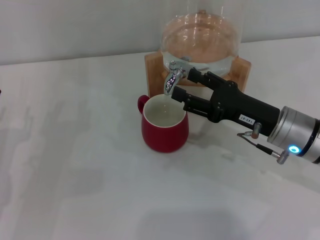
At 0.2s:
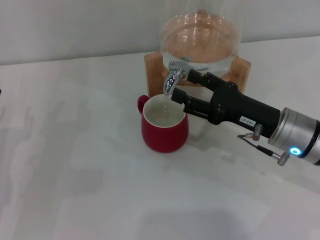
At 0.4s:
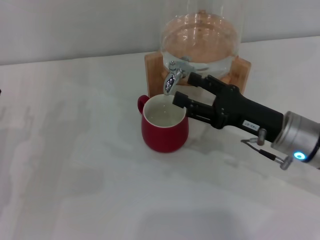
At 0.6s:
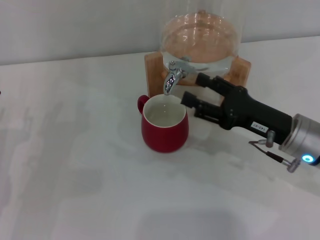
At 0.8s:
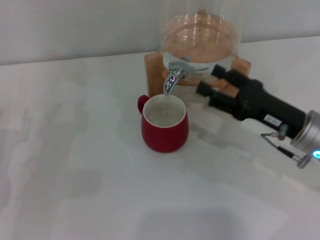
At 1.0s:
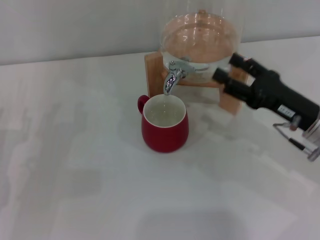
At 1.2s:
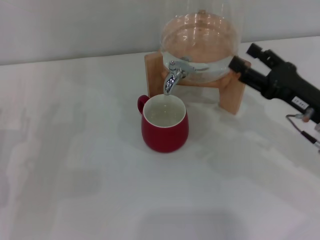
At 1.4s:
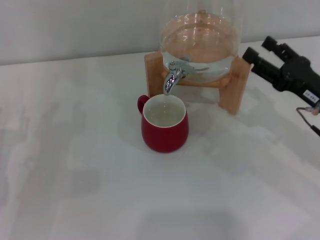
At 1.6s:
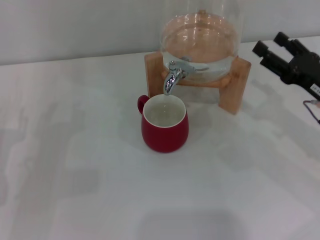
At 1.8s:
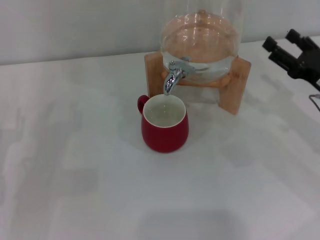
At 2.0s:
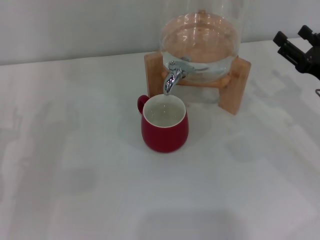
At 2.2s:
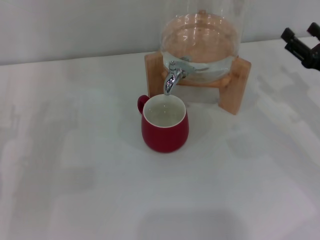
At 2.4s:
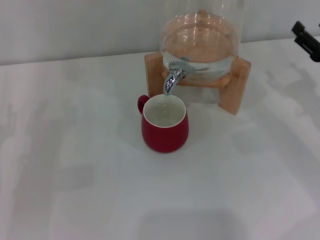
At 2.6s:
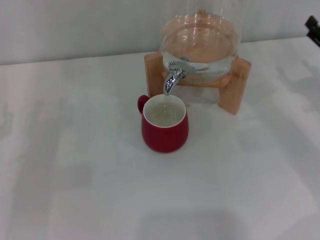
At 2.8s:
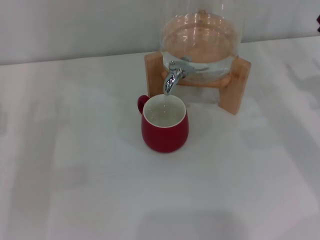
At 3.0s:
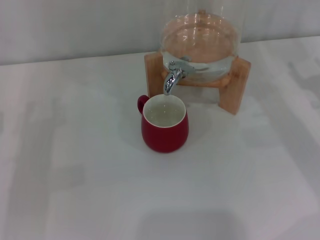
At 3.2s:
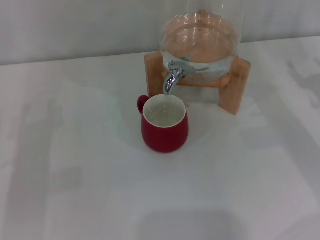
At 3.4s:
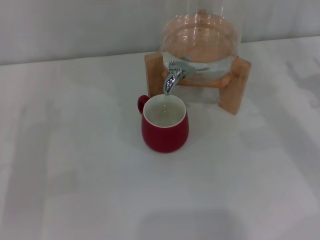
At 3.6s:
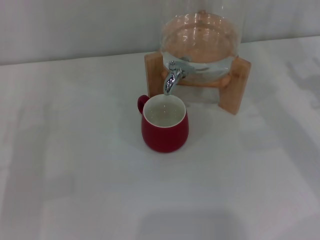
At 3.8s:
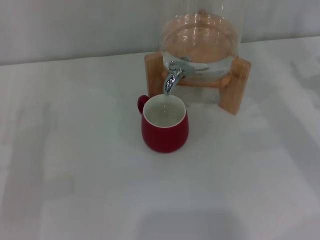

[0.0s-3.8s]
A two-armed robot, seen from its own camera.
Task of the whole recording: the left gripper pick up the red cup and place it horizontally under the faucet, the right gripper turn on the faucet to fill the cup, and then turn off the faucet.
0.0s to 1.2s: The right gripper heads to the right, covering some 5 cm.
1.2s to 2.6s: The right gripper moves to the right, about 10 cm.
2.6s to 3.8s: The grippers make only small movements.

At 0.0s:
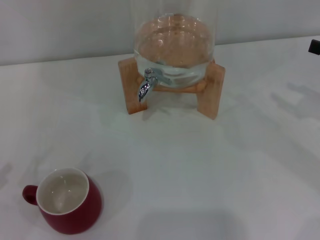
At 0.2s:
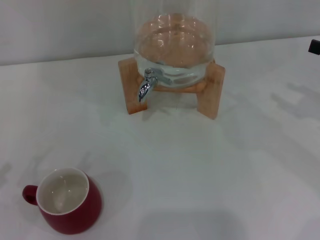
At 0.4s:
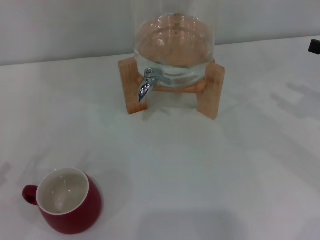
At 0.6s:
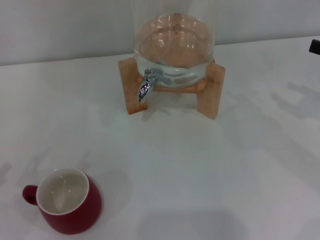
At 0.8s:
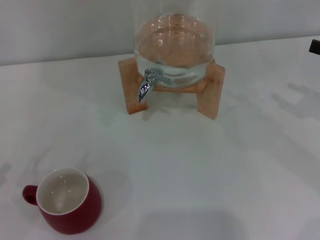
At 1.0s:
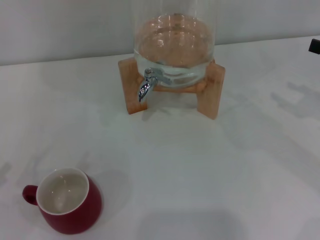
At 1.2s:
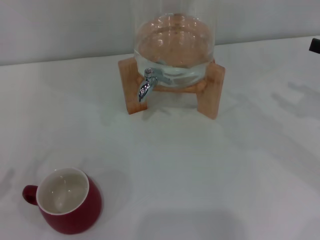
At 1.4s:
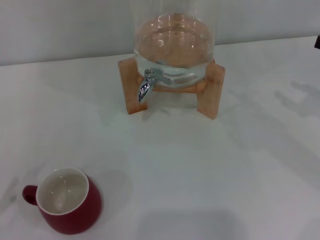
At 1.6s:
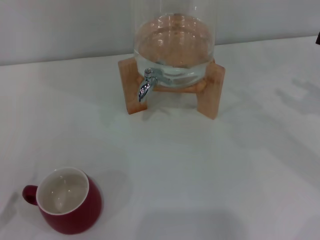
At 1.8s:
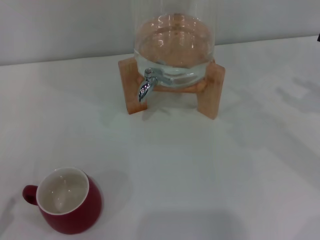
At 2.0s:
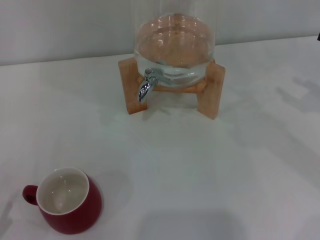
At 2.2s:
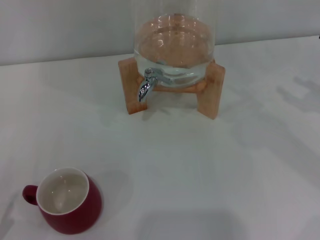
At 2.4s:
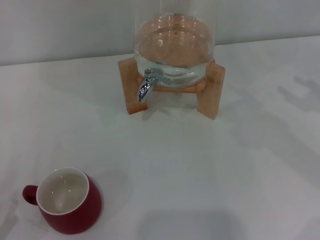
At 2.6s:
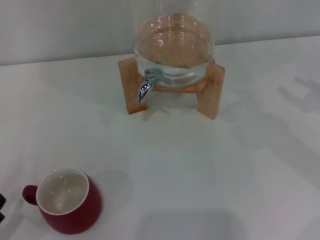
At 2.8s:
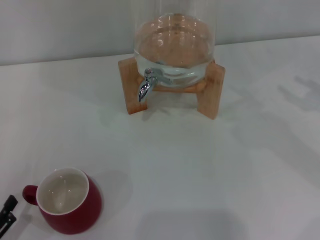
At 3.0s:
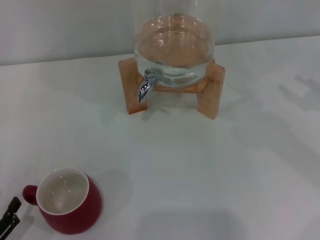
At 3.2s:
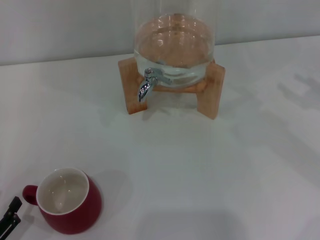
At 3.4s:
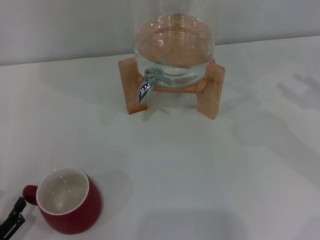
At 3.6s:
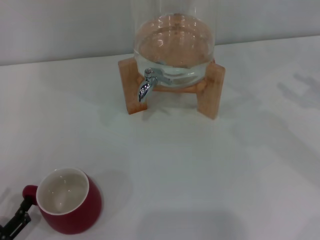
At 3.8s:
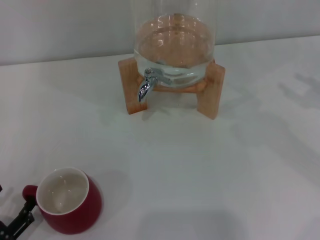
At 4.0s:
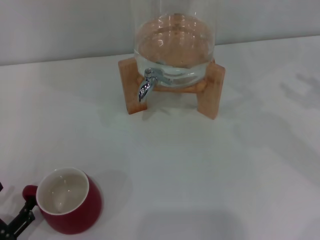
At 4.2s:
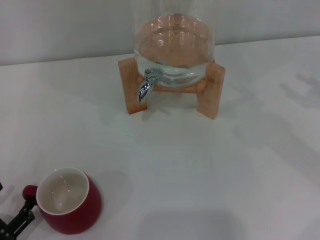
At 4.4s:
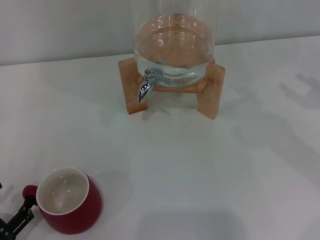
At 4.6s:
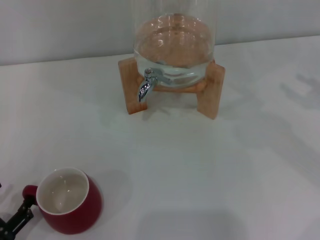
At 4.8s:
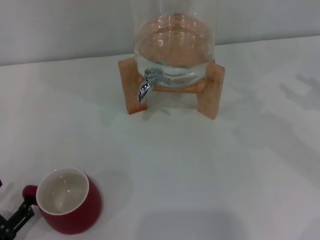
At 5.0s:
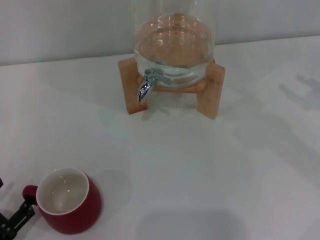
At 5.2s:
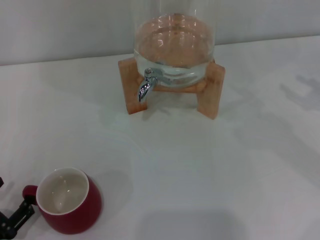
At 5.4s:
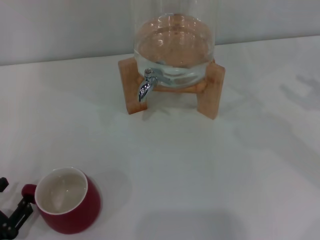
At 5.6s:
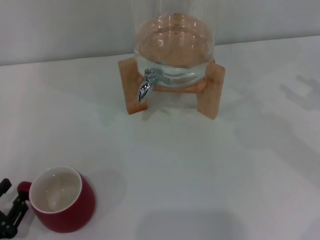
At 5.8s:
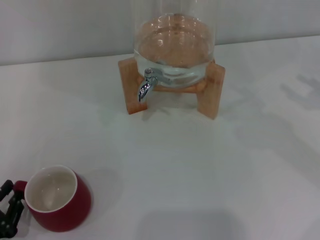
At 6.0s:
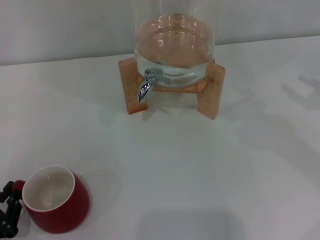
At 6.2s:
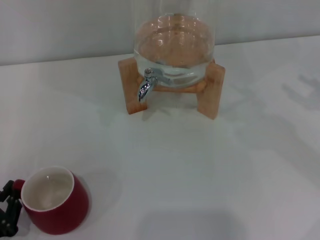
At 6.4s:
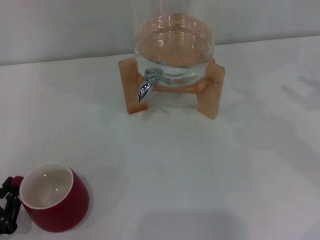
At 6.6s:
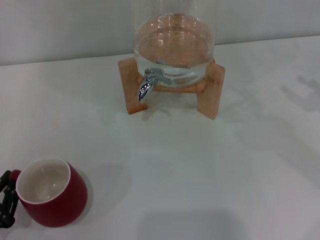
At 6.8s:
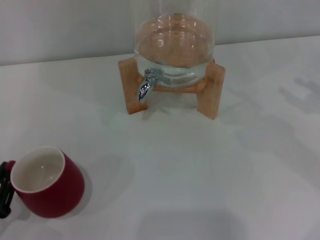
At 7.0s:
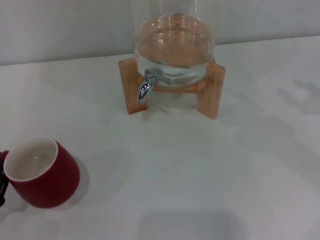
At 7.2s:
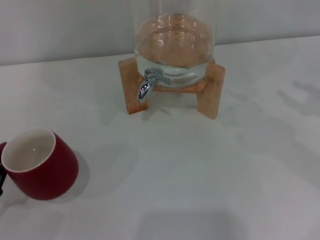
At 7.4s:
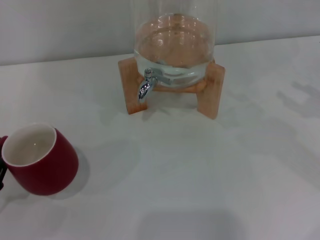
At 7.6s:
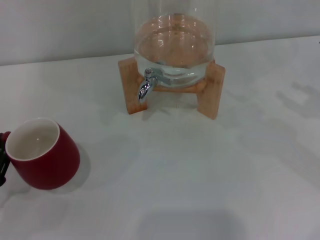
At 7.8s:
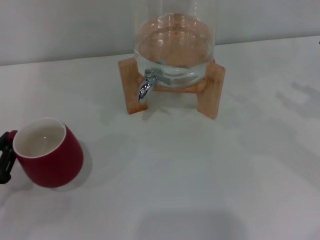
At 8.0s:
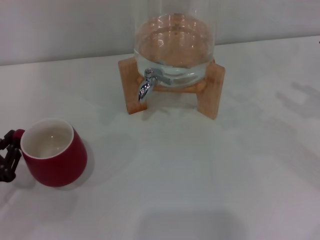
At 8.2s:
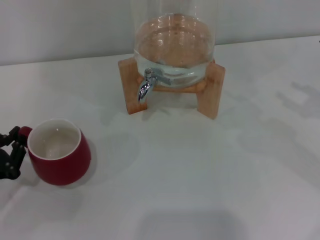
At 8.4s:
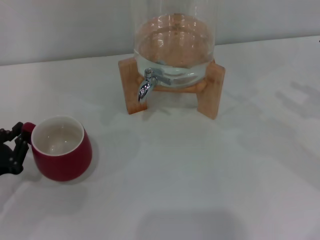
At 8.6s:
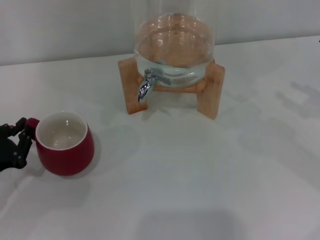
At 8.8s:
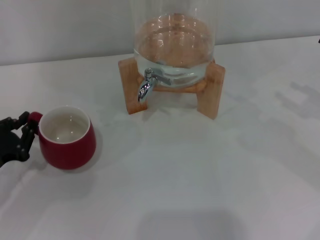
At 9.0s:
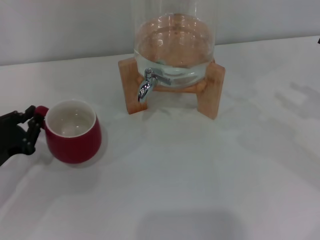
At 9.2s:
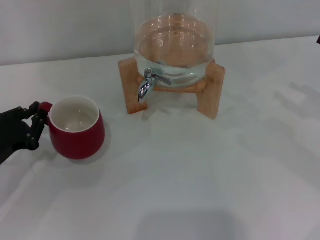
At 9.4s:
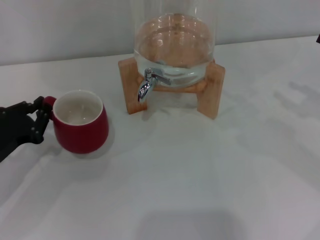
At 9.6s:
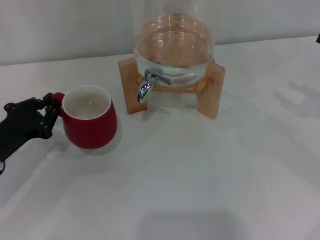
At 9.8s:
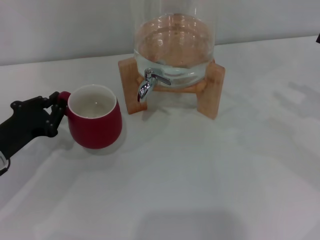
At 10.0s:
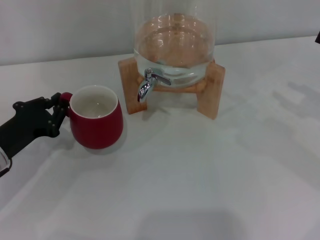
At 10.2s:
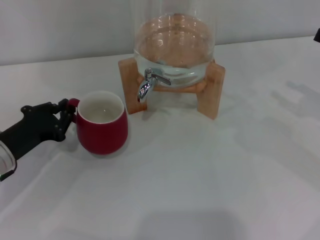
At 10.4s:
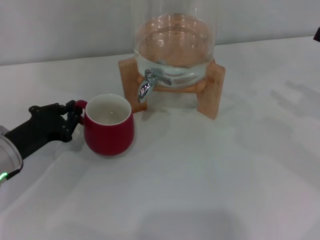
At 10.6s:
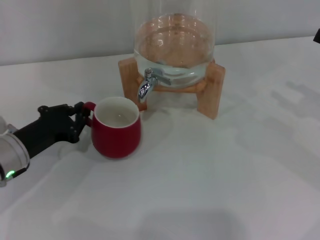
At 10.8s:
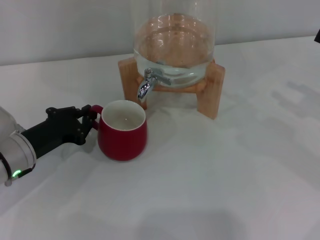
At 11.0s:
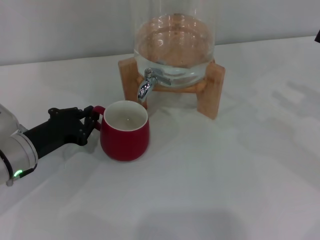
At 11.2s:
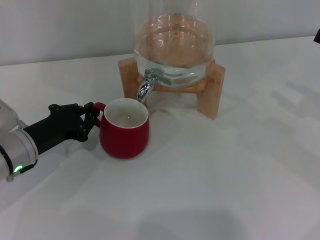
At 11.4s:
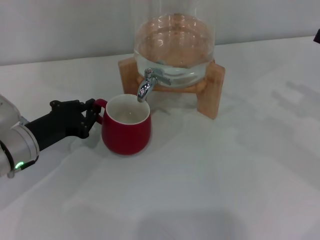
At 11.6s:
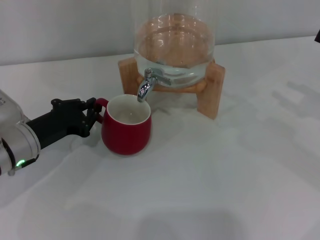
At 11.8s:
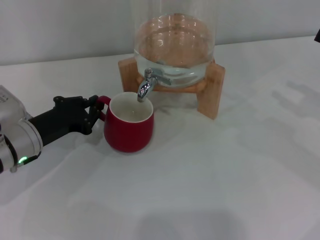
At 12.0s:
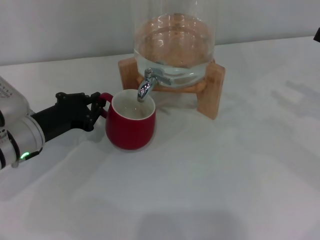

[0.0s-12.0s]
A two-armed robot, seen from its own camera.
Task of the whole recording: the left gripper pick up the red cup and place it horizontally under the faucet, the right gripper turn on the faucet to fill the cup, and then turn off the faucet.
1.6s to 3.0s: The left gripper changes place by roughly 5 cm.
3.0s to 4.4s: The grippers move only a little.
4.4s to 6.0s: The left gripper closes up.
6.0s to 7.6s: The left gripper shifts approximately 5 cm forward.
7.6s to 9.0s: The left gripper is displaced forward by roughly 5 cm.
9.0s to 10.4s: The left gripper moves approximately 5 cm.
10.4s to 12.0s: The grippers stay close to where they were, moving slightly.

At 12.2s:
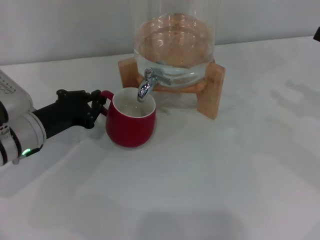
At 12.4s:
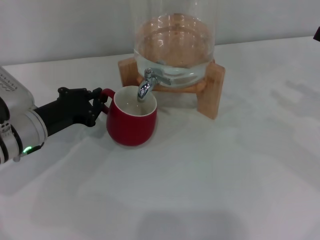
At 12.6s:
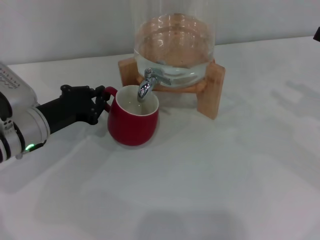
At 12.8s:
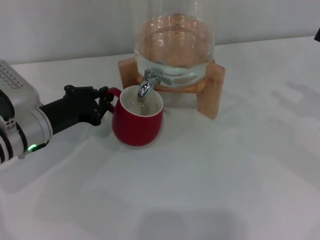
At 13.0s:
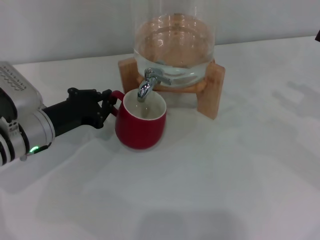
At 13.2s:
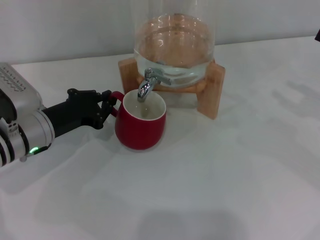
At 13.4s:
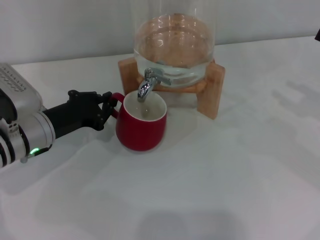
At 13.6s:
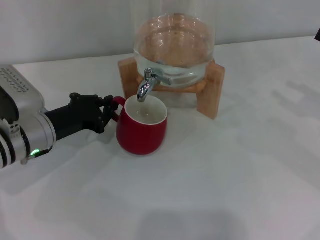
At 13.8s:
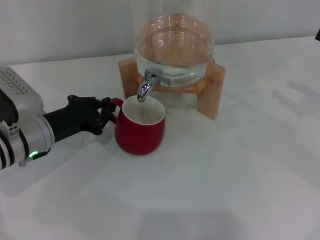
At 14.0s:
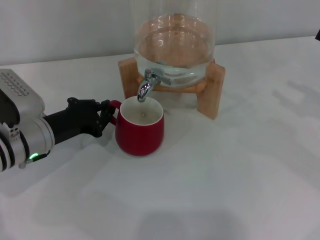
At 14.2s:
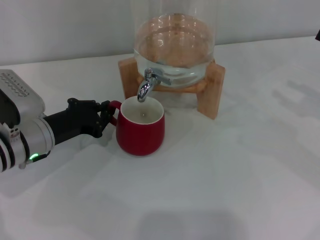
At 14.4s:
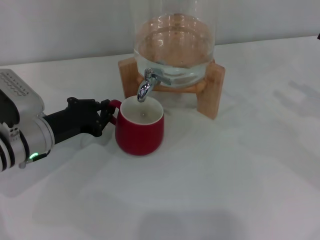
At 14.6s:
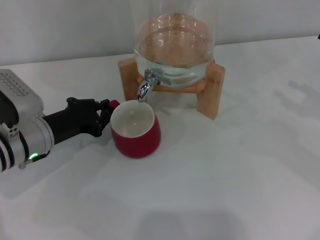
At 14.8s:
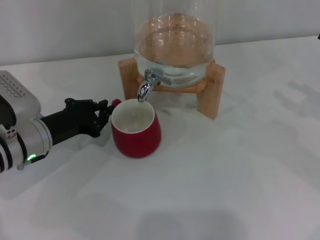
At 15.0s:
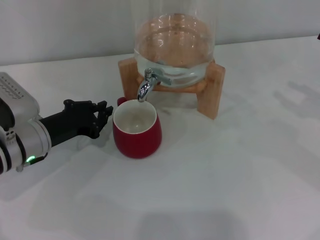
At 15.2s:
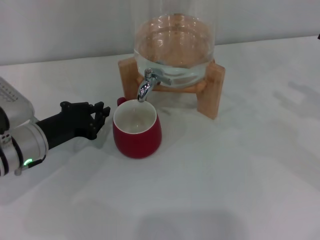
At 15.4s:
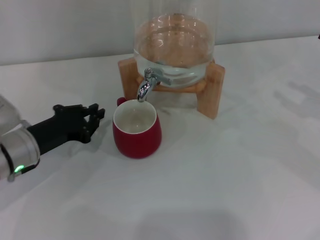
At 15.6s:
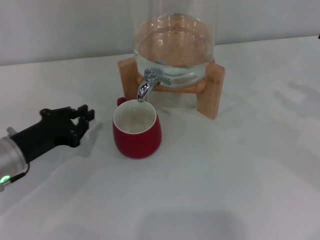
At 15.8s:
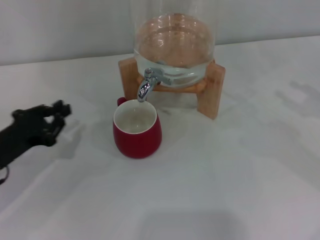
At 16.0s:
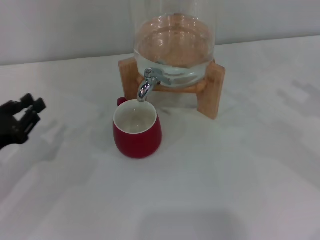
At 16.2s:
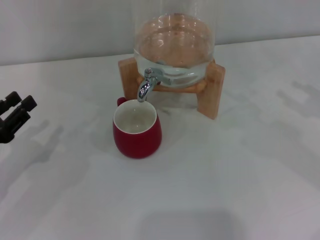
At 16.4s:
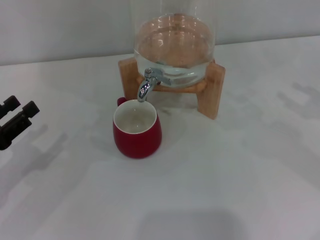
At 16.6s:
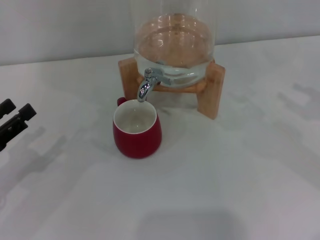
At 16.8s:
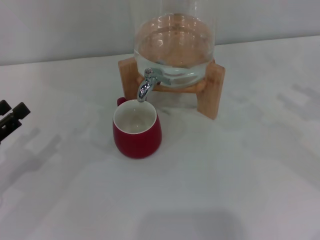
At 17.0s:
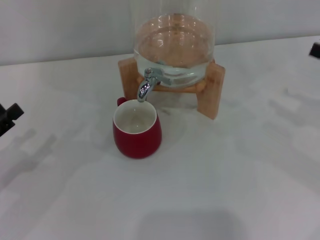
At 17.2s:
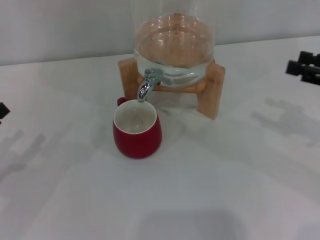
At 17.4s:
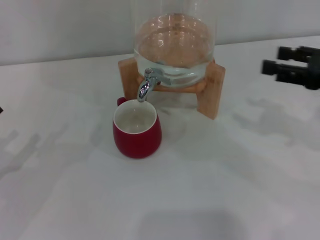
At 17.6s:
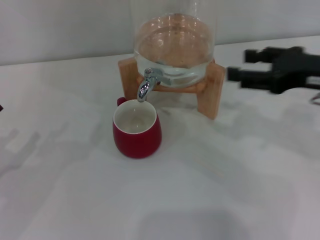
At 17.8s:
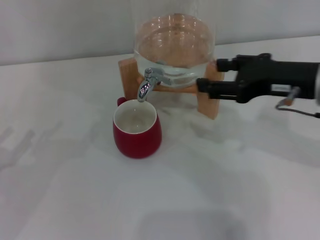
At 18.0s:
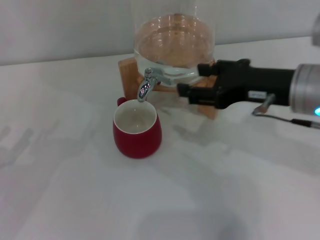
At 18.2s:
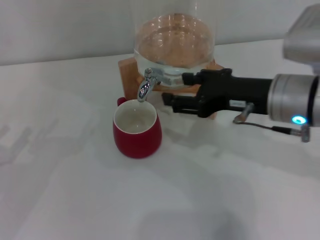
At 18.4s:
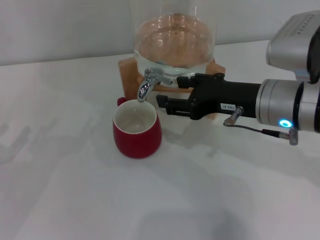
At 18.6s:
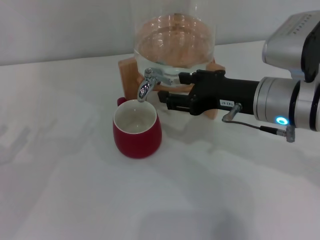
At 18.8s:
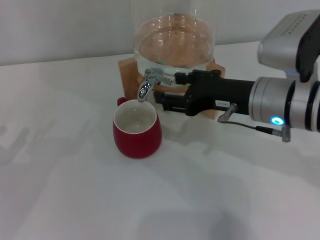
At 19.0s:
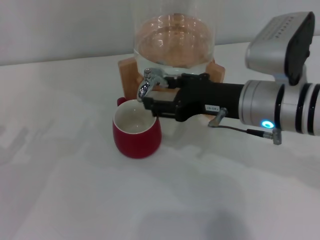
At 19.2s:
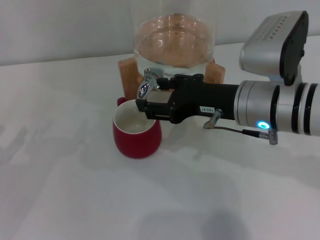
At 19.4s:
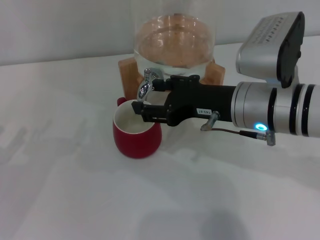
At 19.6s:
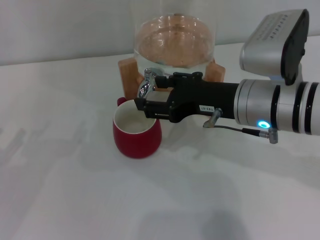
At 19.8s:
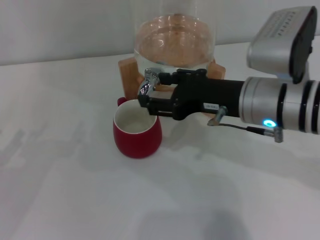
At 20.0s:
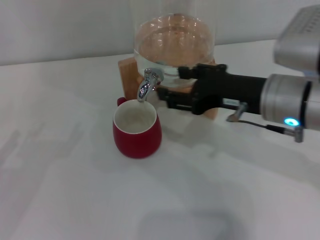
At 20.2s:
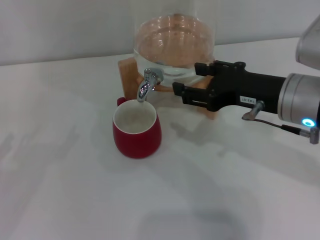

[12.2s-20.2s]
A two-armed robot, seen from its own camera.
Task of the whole recording: the left gripper pick up the red cup and place it horizontally under the faucet, the right gripper turn on the faucet to fill the cup, and then turn off the faucet.
Step, 12.2s to 15.2s: Move the cup beneath the water dispenser nozzle with the left gripper.
Step, 15.6s to 19.6s: Open the dispenser valve and fill the cup with water with the right gripper.
12.2s to 13.8s: Neither gripper changes place.
13.8s to 15.4s: The grippers stay close to where they were, moving slightly.
15.4s to 17.0s: The left gripper shifts roughly 15 cm to the left and backward, and opens up.
17.0s to 18.6s: The right gripper shifts about 20 cm to the left.
18.6s to 20.2s: The grippers move only a little.
